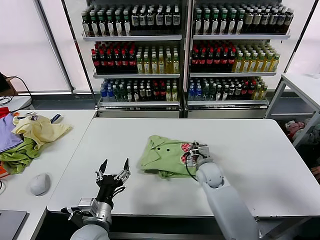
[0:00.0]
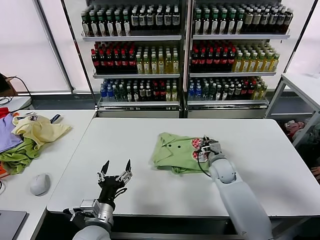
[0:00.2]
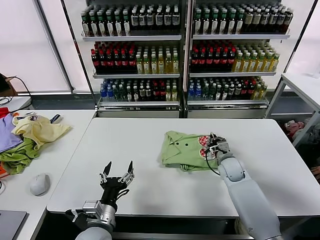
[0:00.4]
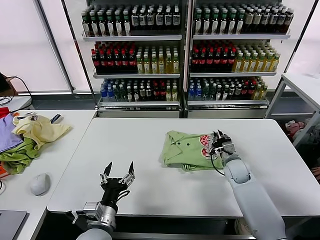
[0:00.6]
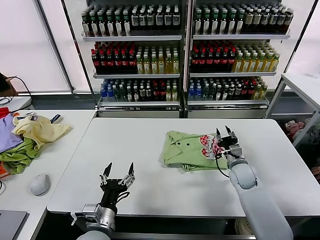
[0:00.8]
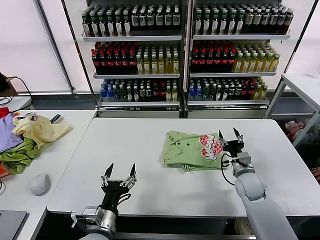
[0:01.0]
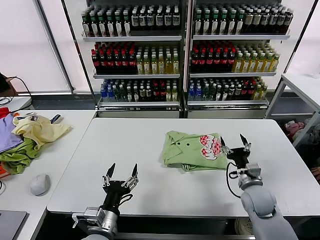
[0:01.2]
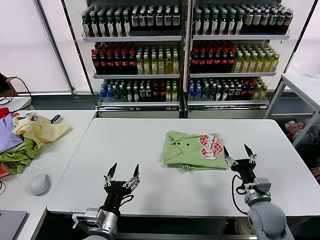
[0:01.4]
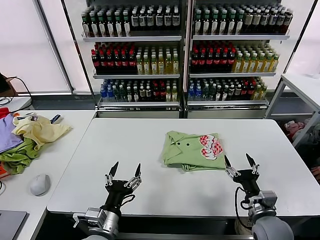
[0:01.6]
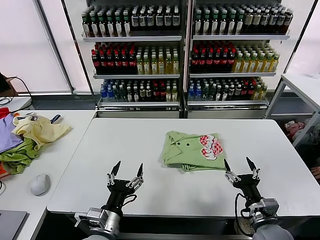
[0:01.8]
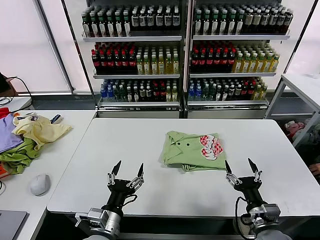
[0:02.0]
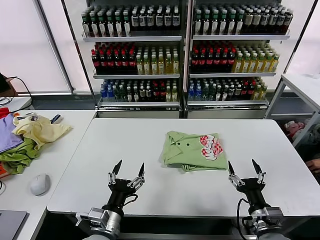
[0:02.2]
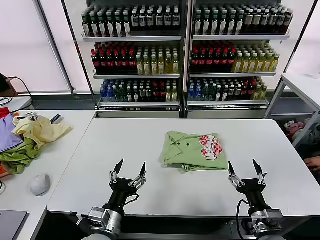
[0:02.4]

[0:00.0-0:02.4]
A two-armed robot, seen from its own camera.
Task of the whole recording: fold and organize the clothes.
0:00.0 to 0:01.2: The right gripper travels to the right and backward by about 15 cm, and opens its fingers.
0:01.2 to 0:02.4: The right gripper shifts some 15 cm backward.
